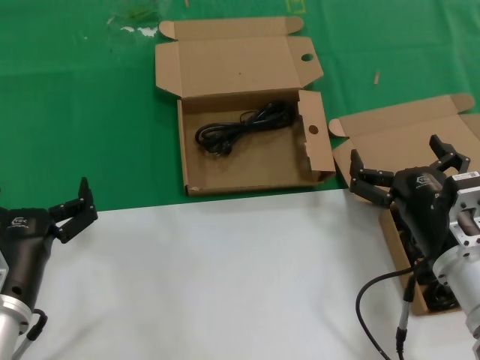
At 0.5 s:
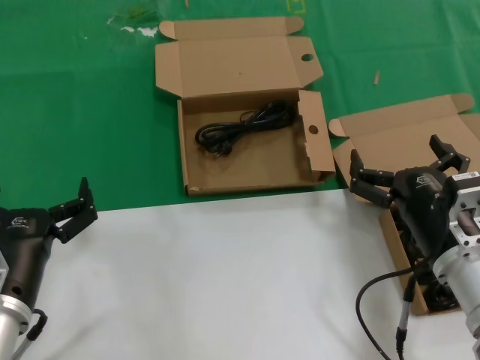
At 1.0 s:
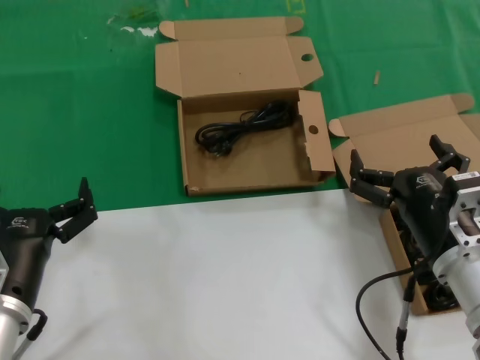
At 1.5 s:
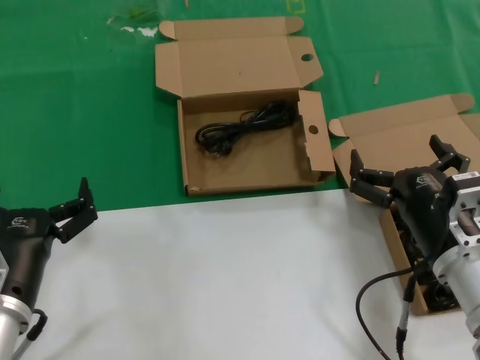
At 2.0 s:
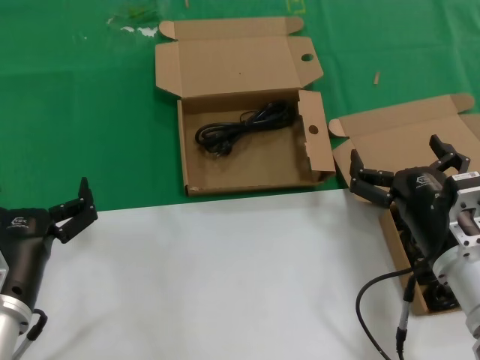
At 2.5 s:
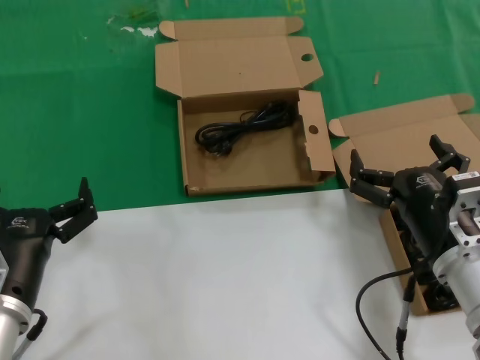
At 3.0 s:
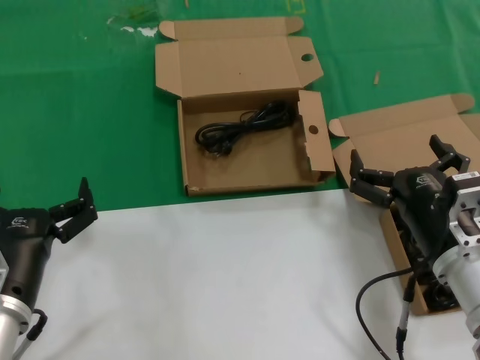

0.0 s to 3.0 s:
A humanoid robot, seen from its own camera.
Task of the whole recording: take the parts from the box containing them and put them into an empty box.
0.0 to 3.0 s: Neither hand changes place.

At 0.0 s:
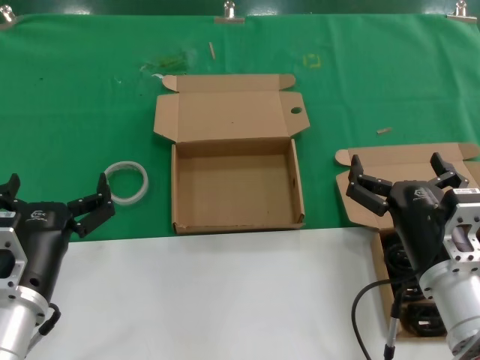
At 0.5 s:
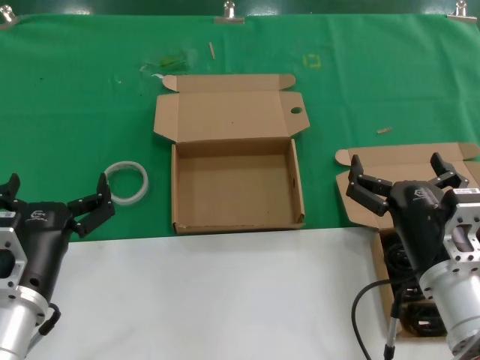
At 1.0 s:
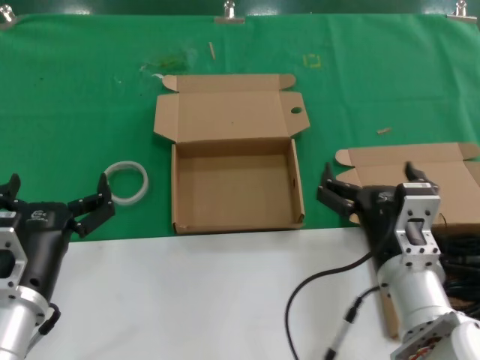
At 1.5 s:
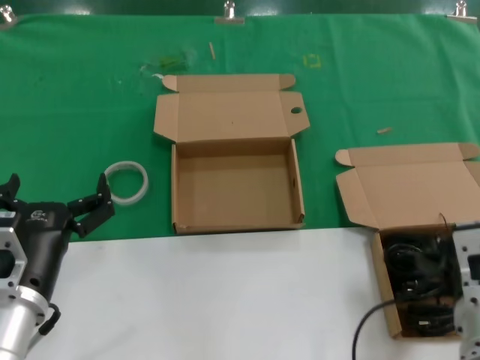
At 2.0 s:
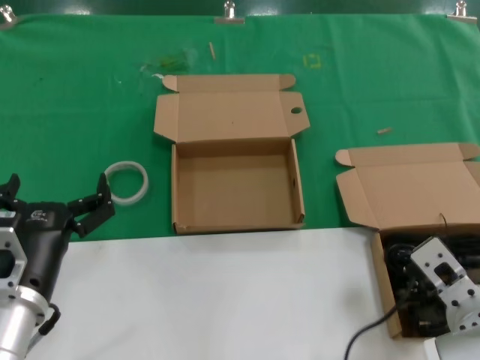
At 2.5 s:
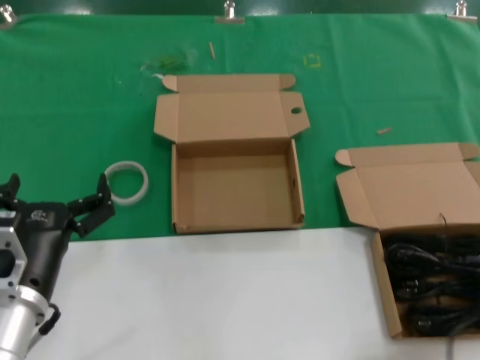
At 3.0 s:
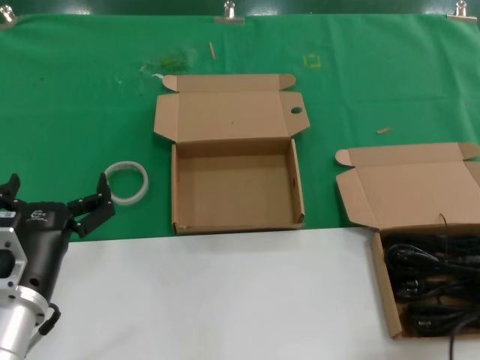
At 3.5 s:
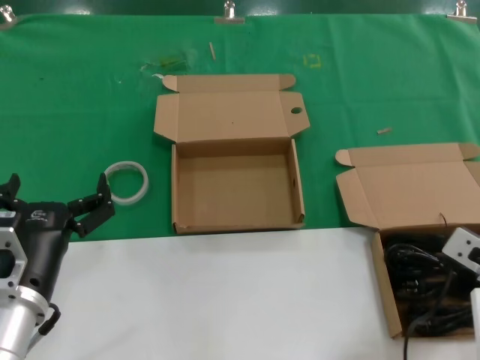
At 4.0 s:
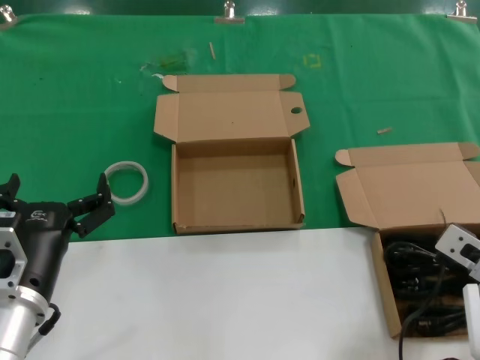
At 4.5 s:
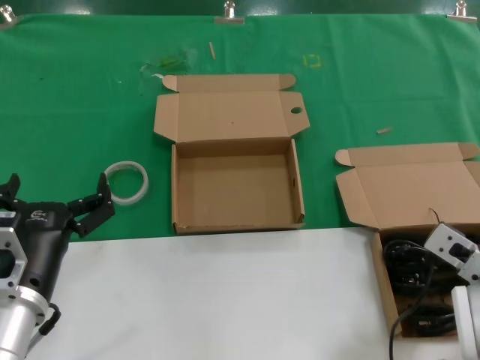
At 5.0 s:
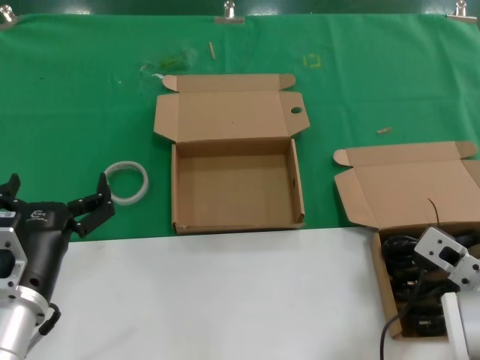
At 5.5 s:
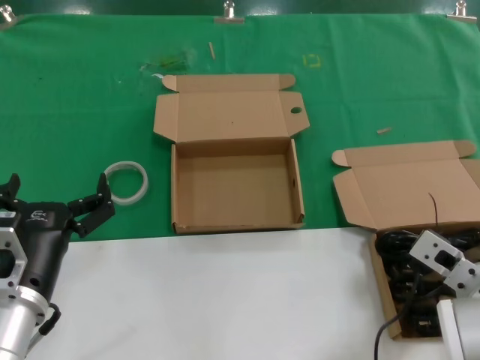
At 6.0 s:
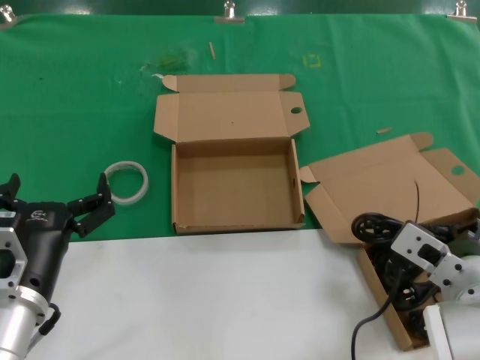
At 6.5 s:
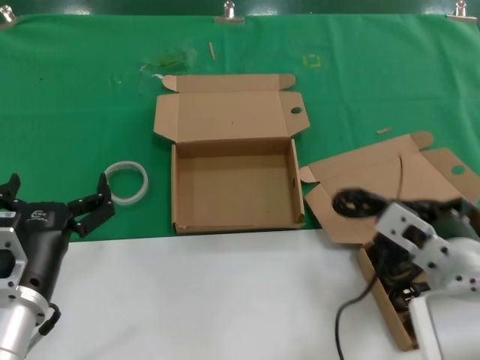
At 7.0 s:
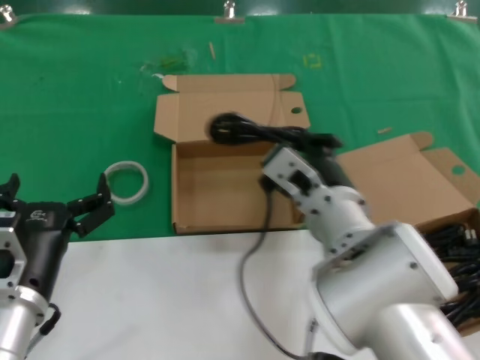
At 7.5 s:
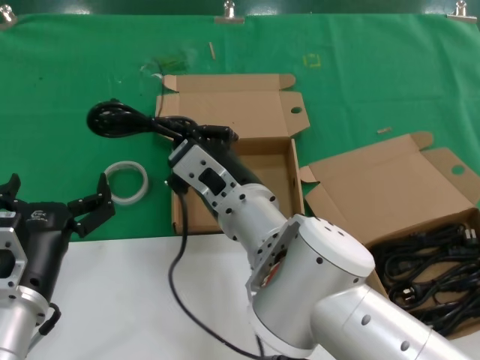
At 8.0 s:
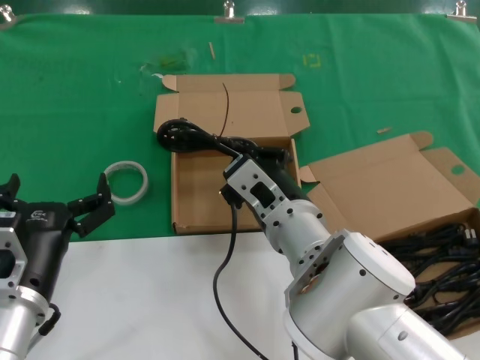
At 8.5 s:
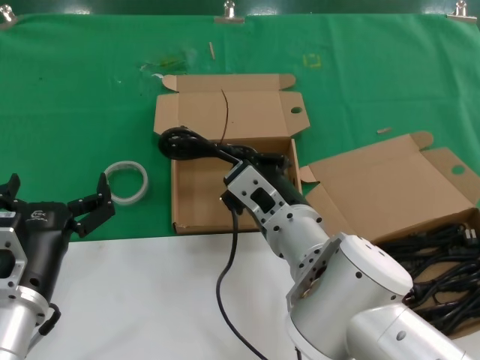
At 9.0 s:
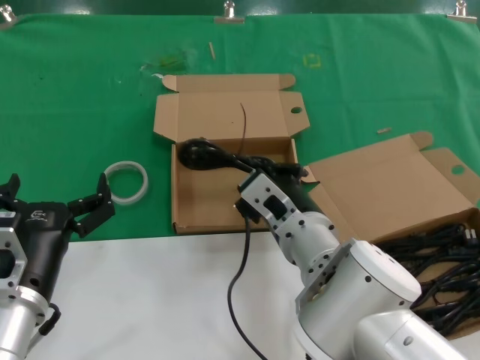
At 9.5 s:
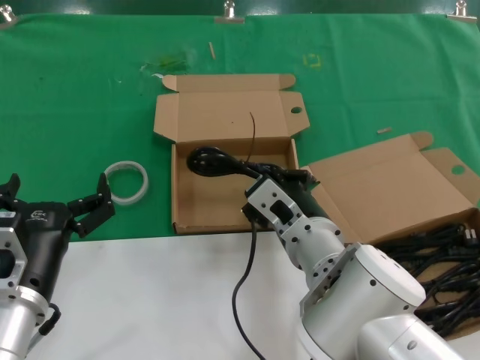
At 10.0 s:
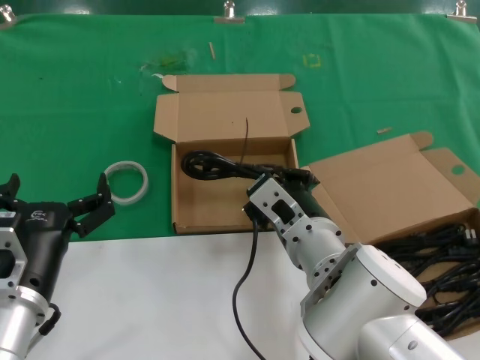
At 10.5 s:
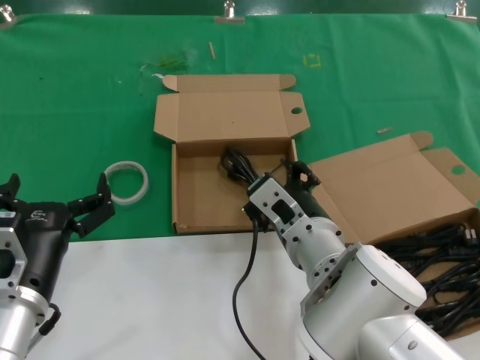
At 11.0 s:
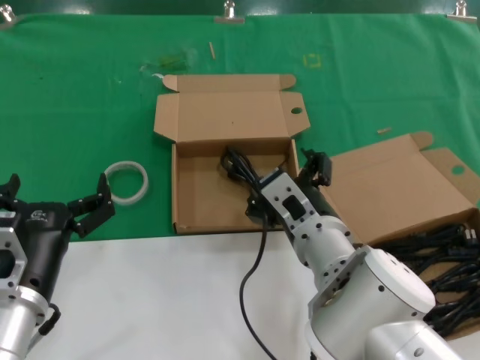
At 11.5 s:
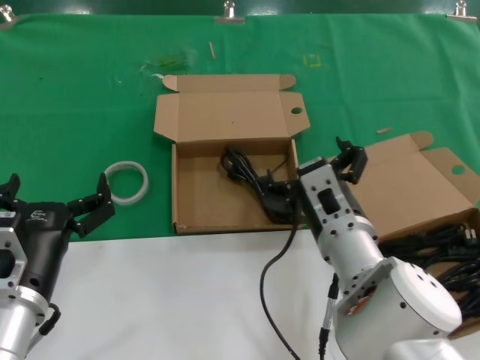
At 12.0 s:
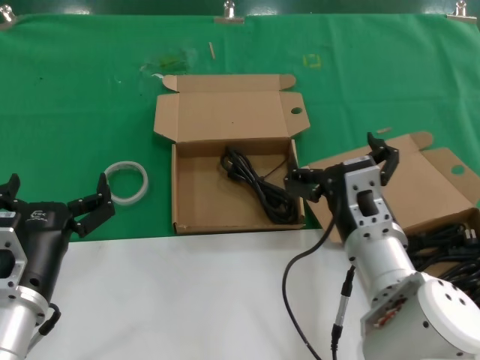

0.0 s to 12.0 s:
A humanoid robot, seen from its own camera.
Task of the whole recording: take the parts from the box containing them and put them into an empty box.
Step, 0.0 to 4.0 s: Grasp the data cable.
Step, 4.5 to 10.0 s: Place the data cable in the another box.
2.0 to 4.0 s: The right hand is displaced to the right by about 5 cm.
4.0 to 6.0 s: The right hand shifts some 5 cm to the left.
6.0 to 8.0 s: The right hand goes approximately 15 cm to the left and forward.
8.0 to 10.0 s: The hands stay close to where they were, moving slightly.
10.0 to 12.0 s: The right hand heads to the right, covering some 5 cm.

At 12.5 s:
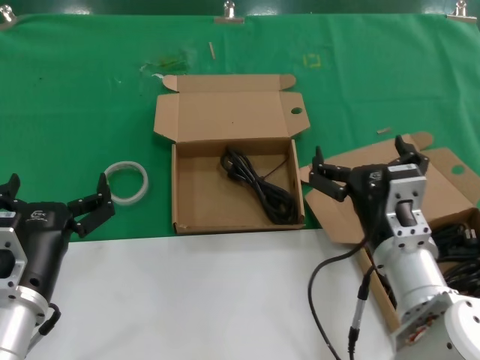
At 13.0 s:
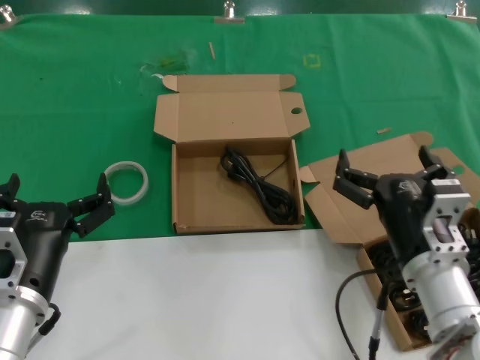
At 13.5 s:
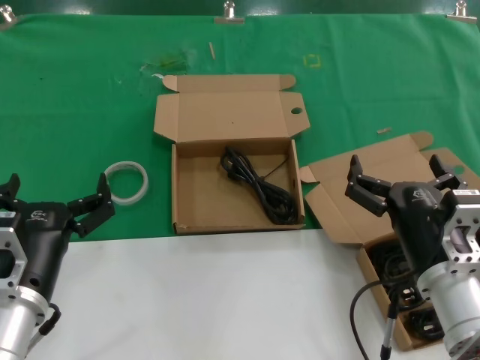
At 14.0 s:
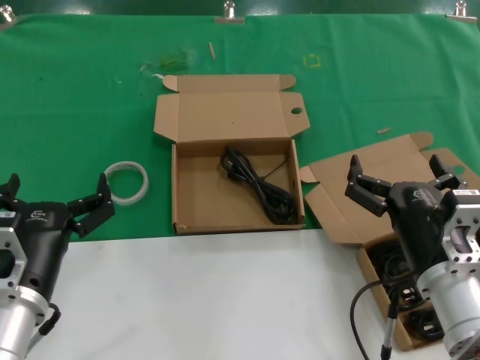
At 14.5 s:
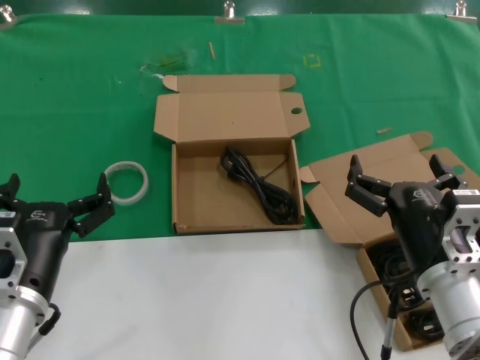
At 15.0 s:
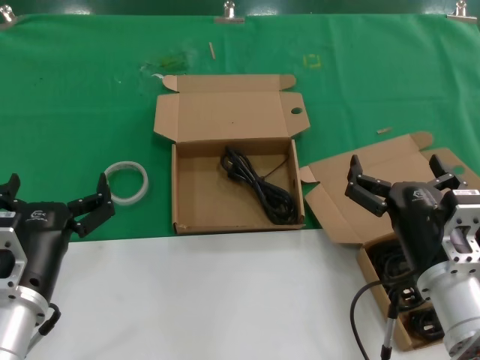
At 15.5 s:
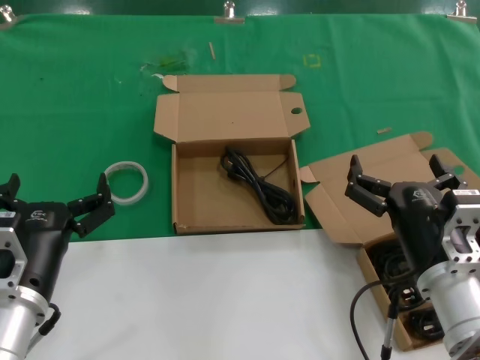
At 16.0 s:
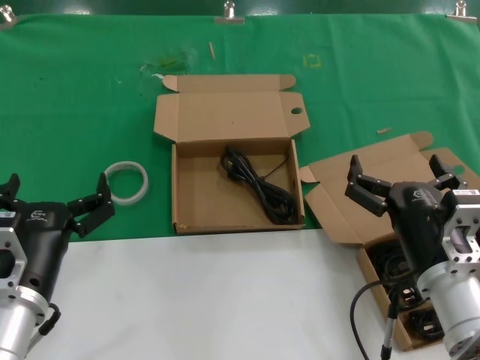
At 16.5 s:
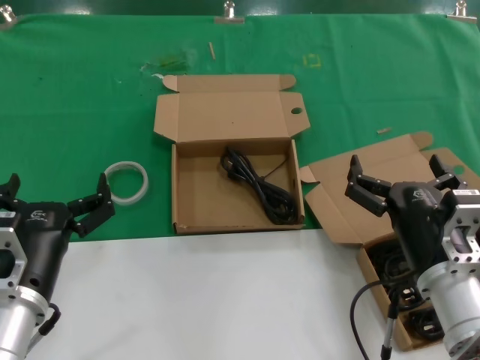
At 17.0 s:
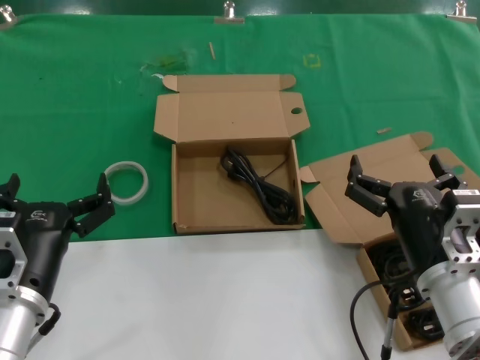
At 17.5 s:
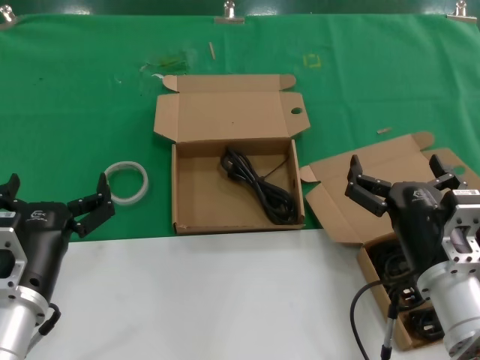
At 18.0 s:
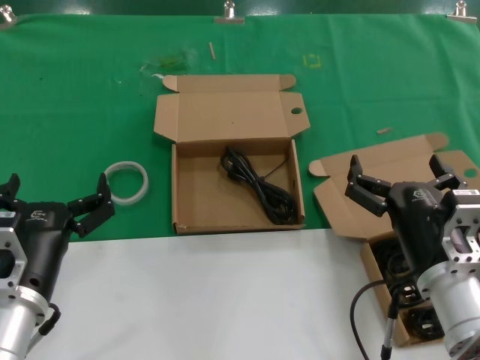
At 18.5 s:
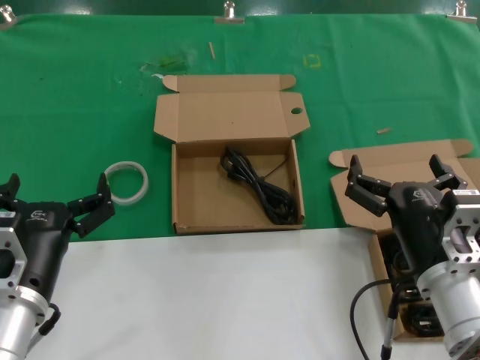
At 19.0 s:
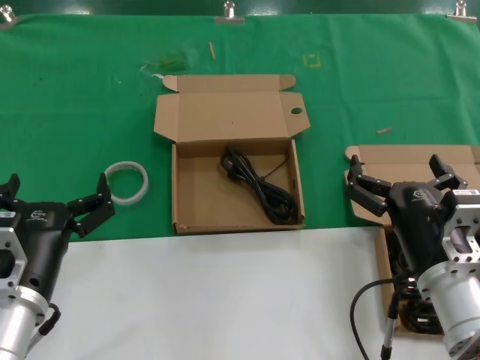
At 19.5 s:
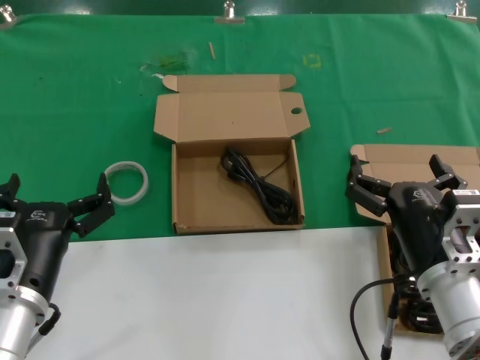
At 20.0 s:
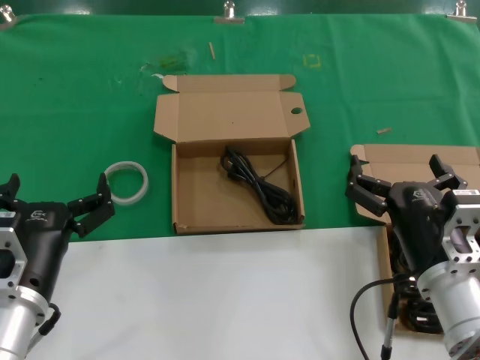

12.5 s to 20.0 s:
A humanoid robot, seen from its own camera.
Task of the whole recording: take the parts from the box containing them and put them into an empty box.
12.5 to 14.5 s: The right hand shifts by roughly 5 cm.
14.5 to 20.0 s: Neither hand changes place.

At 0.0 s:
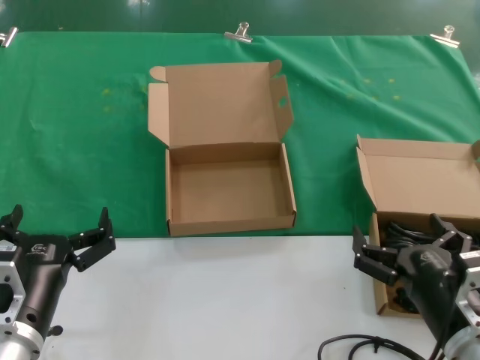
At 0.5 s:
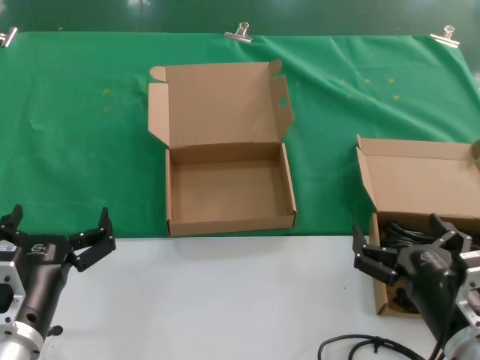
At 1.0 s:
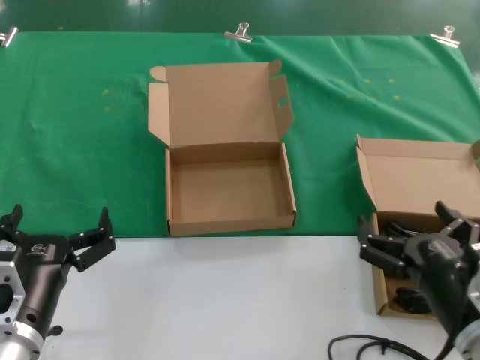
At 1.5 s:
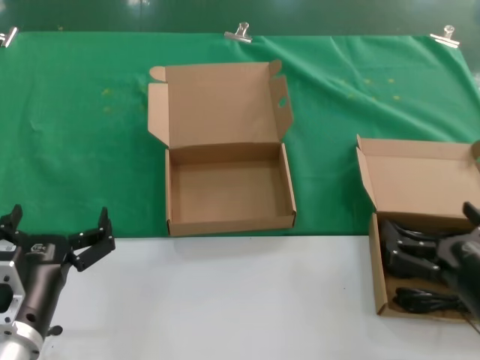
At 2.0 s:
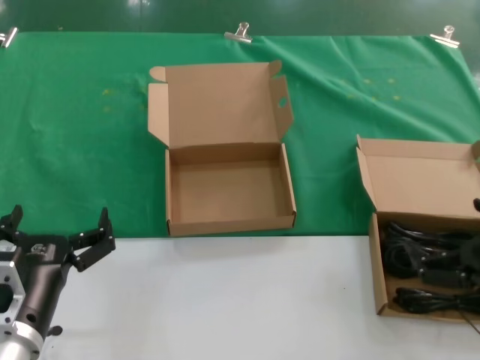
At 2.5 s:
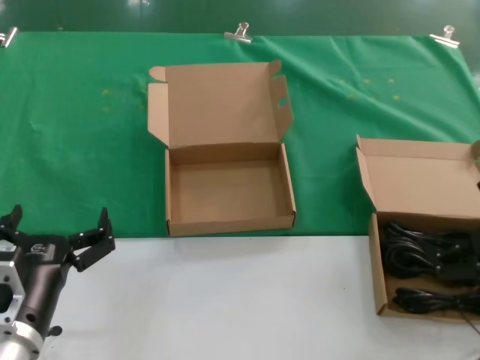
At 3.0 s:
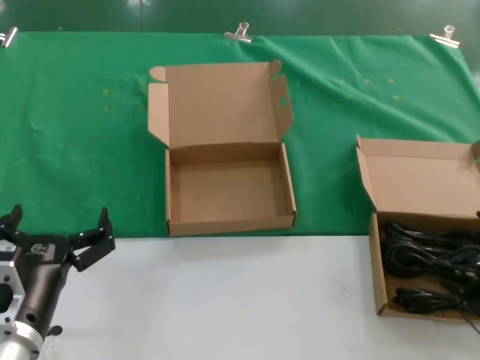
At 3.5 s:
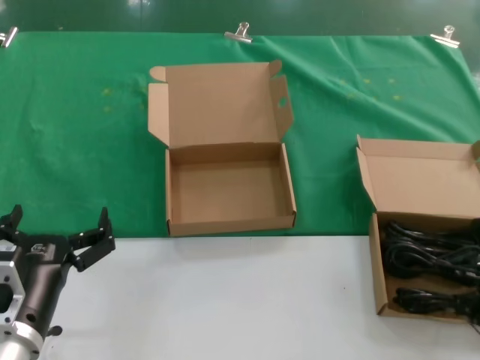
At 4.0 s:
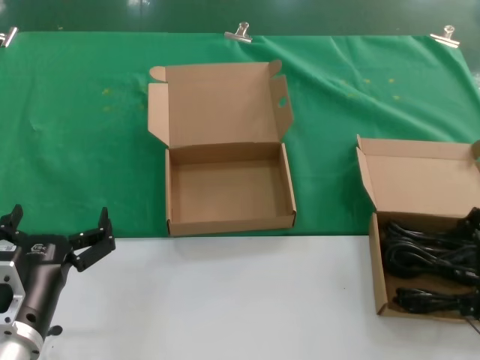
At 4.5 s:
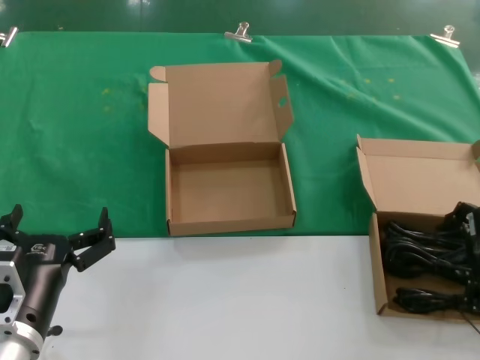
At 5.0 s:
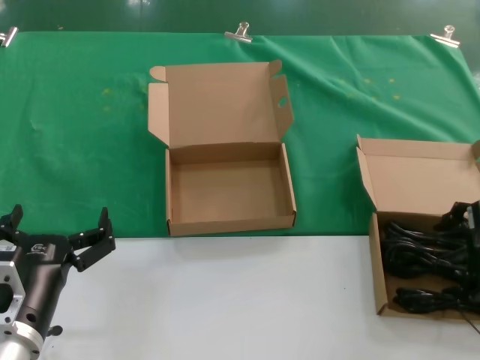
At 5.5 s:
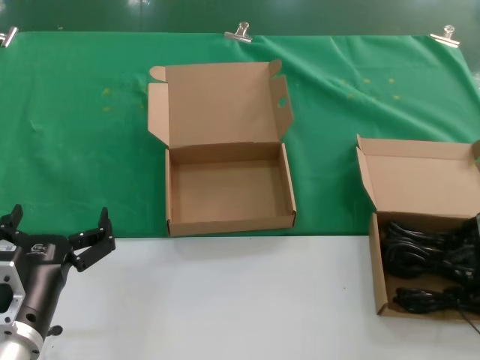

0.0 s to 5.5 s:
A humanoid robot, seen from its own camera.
Task of the whole recording: take the parts from the box containing them and put them into an empty box.
Step, 0.0 to 5.5 s: Grasp the data cable.
0.0 to 2.0 s: The right hand is displaced to the right and upward by approximately 10 cm.
